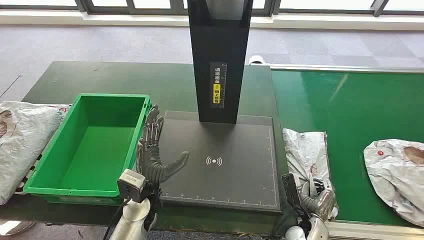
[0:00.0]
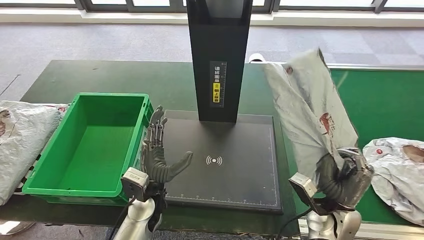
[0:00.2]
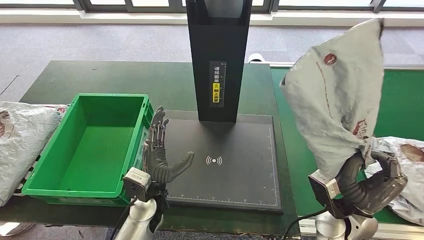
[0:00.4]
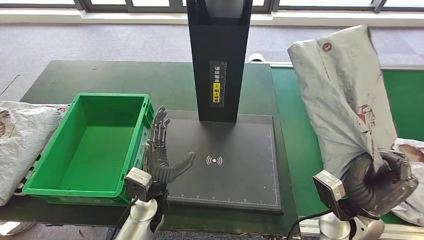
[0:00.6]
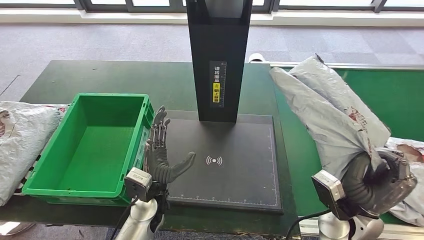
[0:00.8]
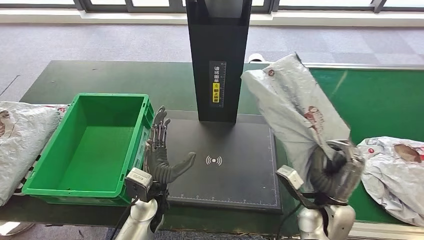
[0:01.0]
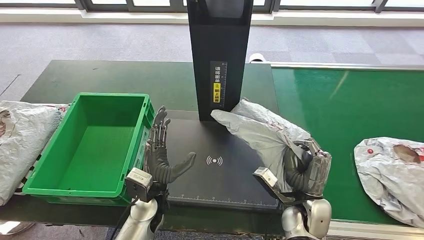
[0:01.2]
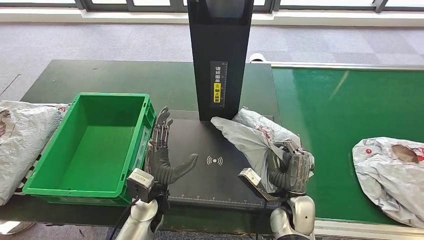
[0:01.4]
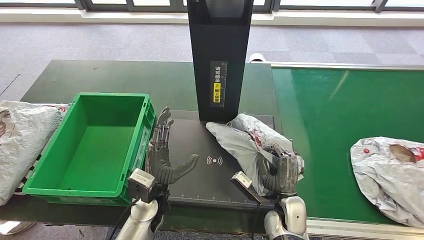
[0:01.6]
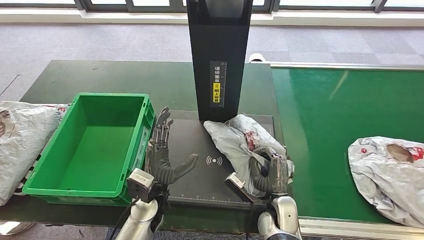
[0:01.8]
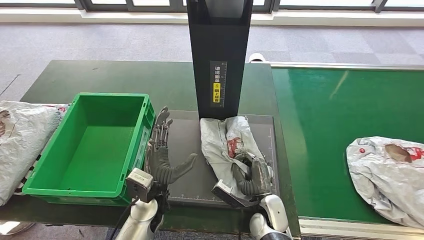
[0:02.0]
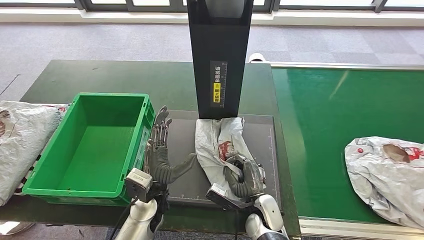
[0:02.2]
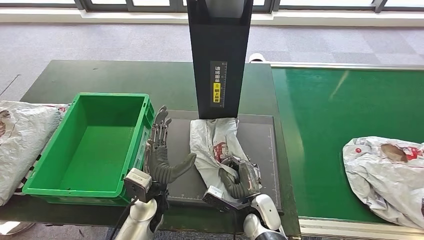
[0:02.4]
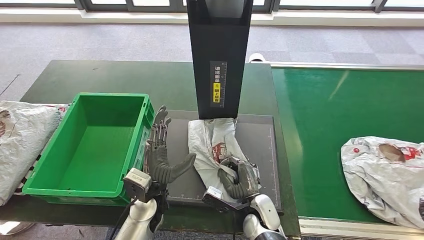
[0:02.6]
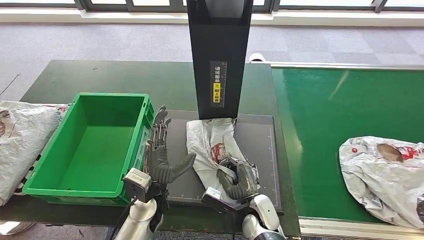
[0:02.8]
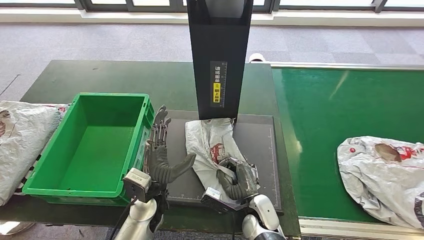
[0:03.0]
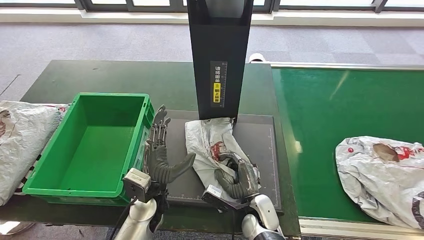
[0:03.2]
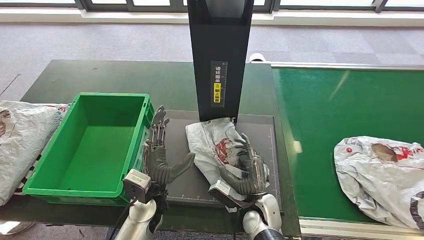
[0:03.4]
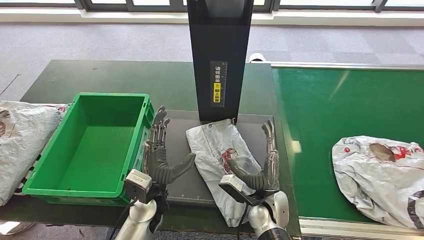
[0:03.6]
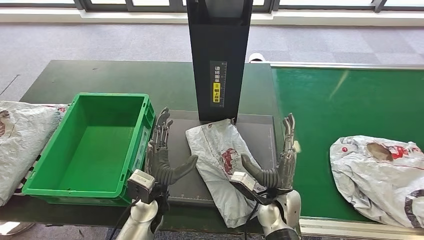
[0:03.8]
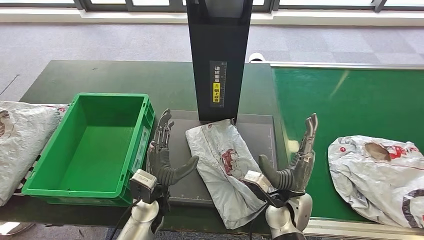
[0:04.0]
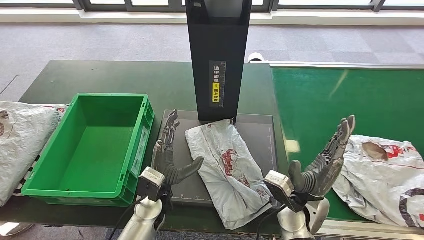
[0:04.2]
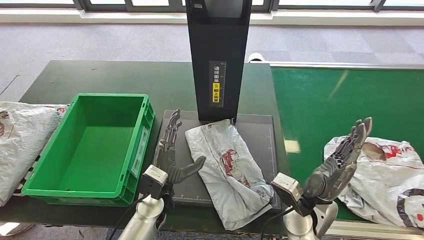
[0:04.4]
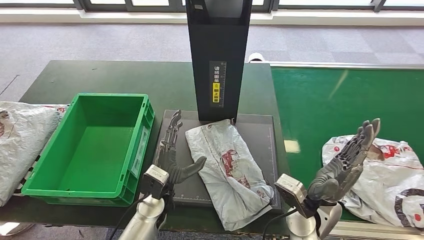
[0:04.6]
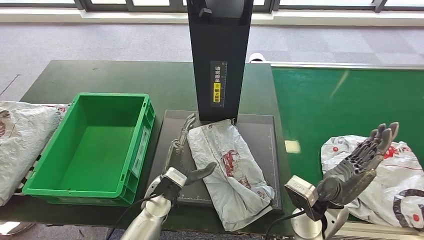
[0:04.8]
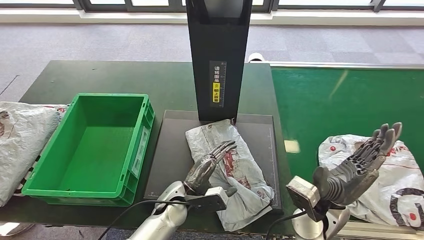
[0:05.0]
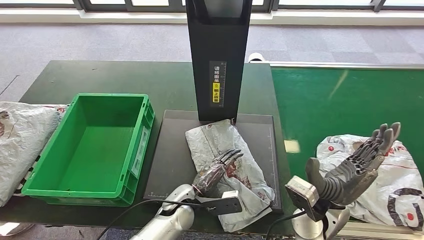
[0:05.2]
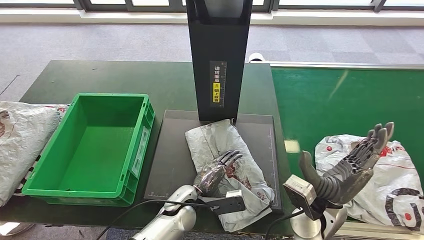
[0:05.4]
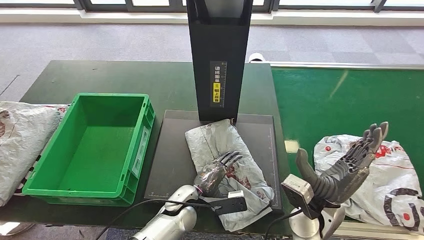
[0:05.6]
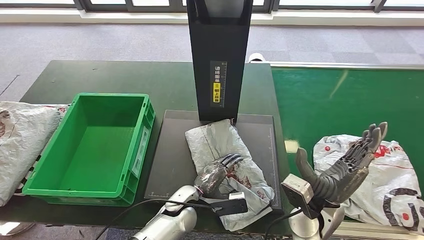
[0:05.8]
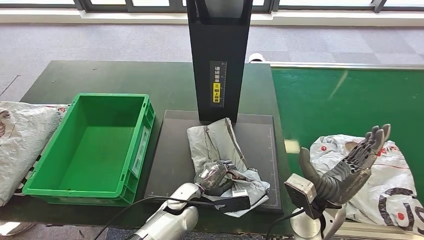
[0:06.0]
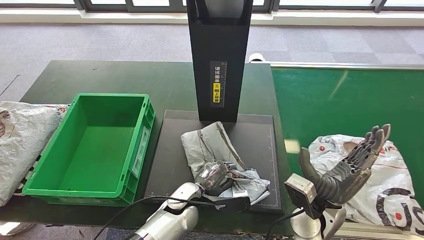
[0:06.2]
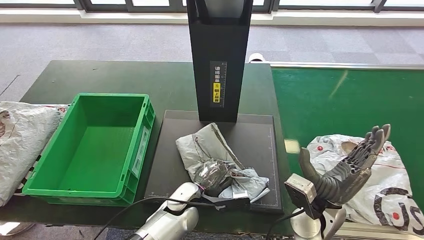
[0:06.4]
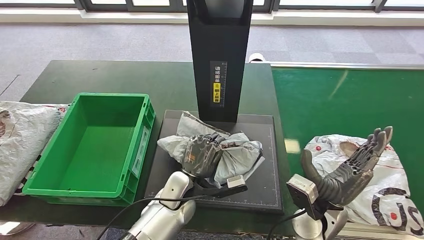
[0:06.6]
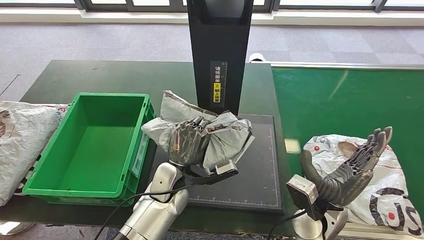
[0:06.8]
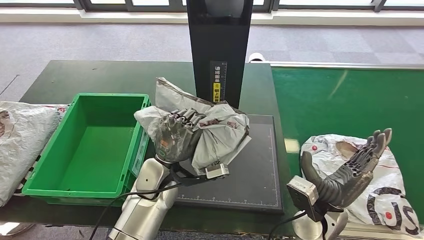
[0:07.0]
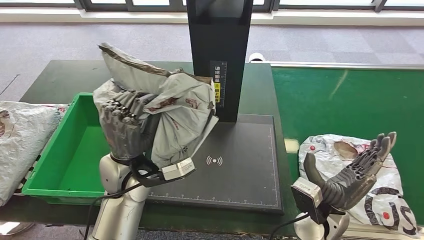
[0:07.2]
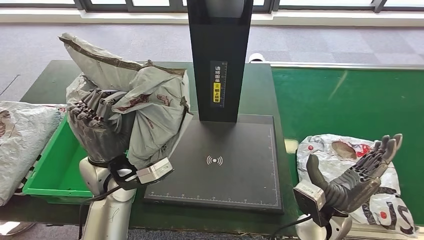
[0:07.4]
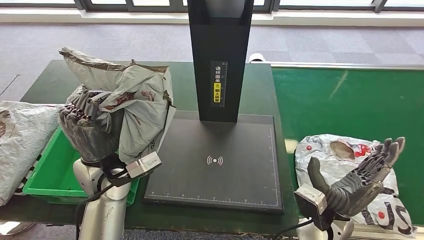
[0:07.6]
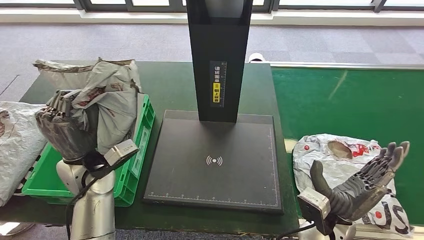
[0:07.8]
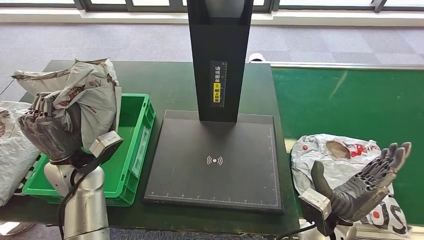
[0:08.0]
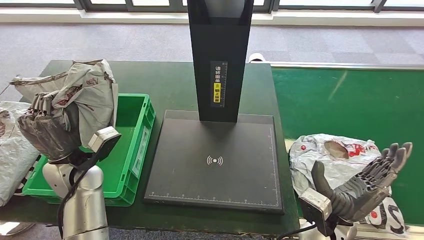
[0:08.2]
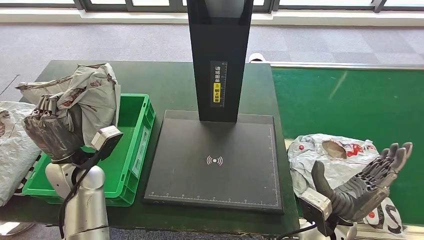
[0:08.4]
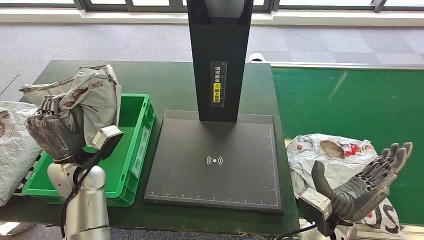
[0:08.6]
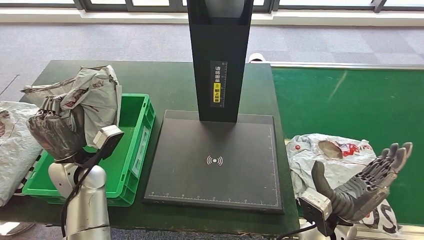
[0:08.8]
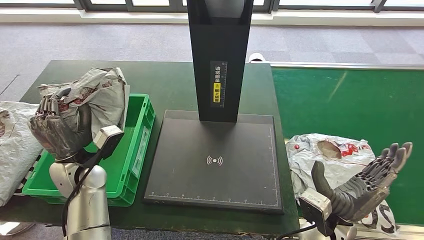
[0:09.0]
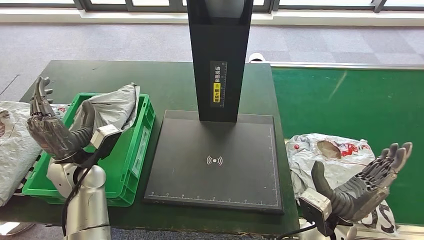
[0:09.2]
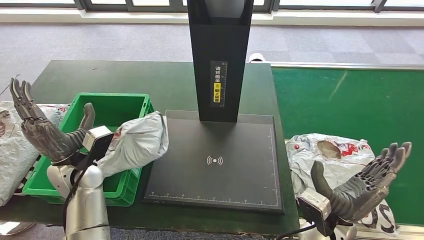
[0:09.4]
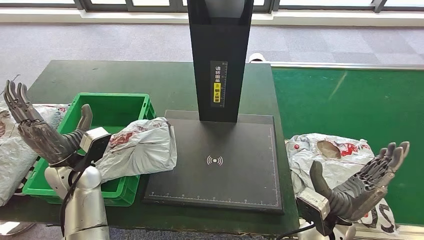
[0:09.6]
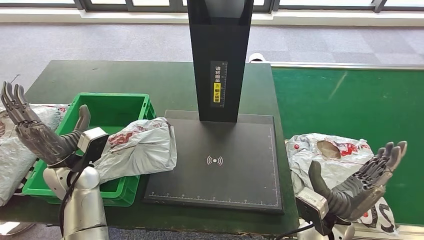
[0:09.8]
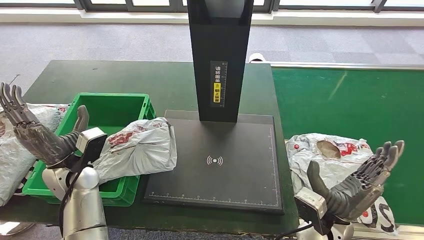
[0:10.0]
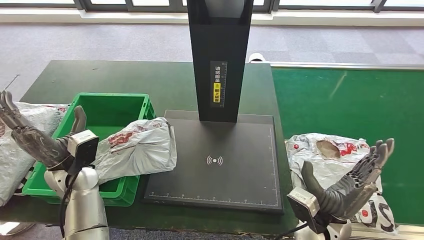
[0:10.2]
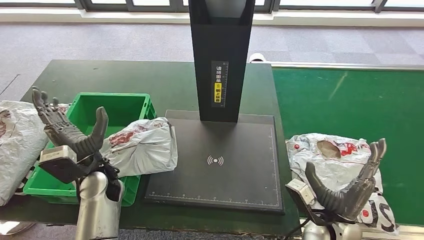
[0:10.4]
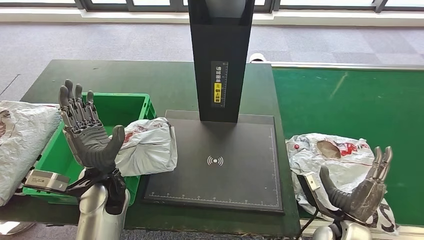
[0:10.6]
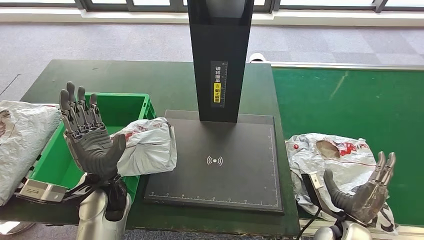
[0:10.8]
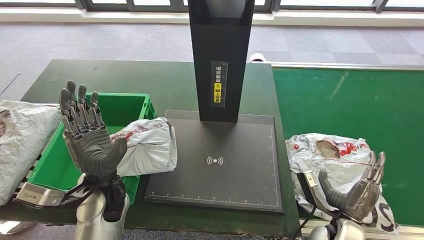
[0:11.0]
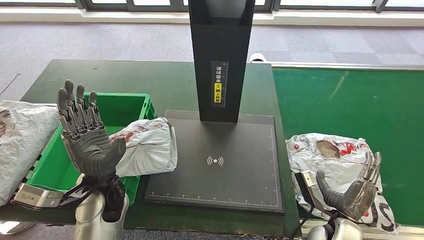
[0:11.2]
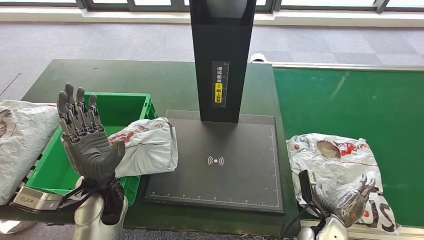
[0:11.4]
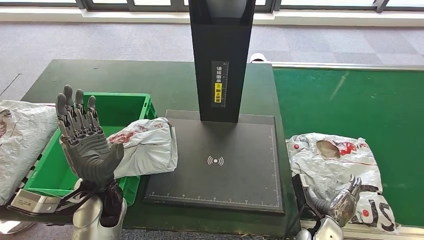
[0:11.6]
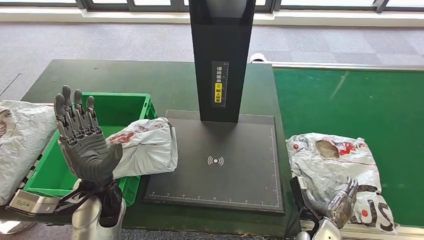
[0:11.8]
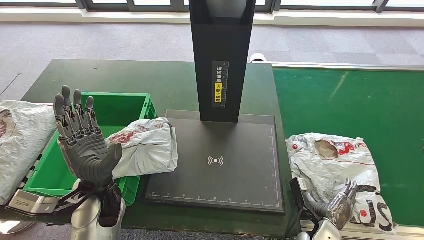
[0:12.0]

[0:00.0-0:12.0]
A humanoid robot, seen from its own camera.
Step, 0.0 to 1.4 s: Take the parcel off the conveyor belt.
Step, 1.6 to 4.2 s: Place the parcel onto the inbound machine.
Step, 4.4 to 7.0 s: Pick up the parcel from the inbound machine.
Step, 7.2 to 10.8 s: Put the parcel inside the courier box.
1.6 to 3.0 s: The right hand travels to the left by about 5 cm.
4.4 to 6.0 s: The left hand travels to the right by about 5 cm.
7.6 to 9.0 s: The left hand moves to the left and downward, approximately 10 cm.
10.4 to 12.0 s: The right hand goes some 10 cm downward. The left hand changes place by some 5 cm.

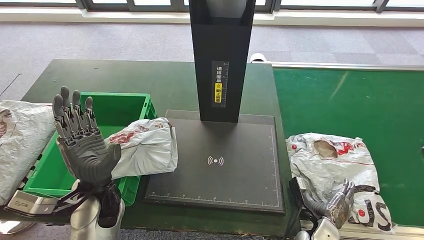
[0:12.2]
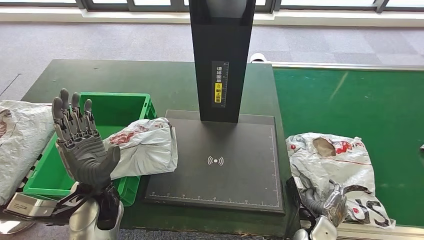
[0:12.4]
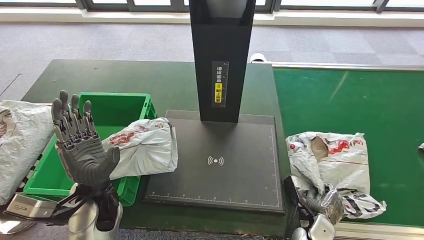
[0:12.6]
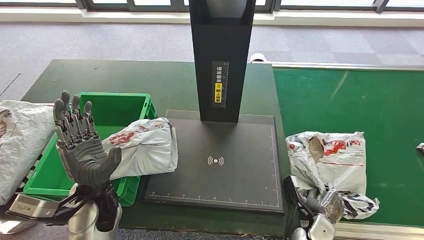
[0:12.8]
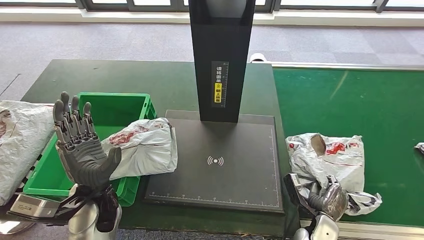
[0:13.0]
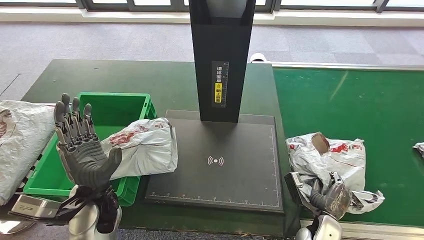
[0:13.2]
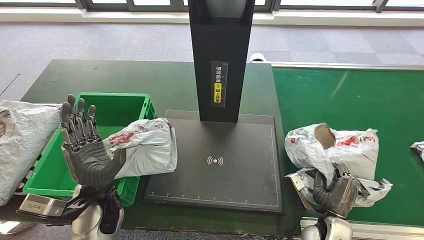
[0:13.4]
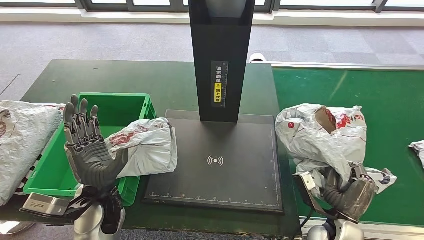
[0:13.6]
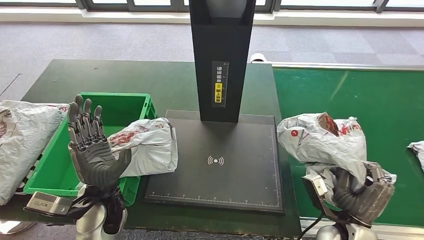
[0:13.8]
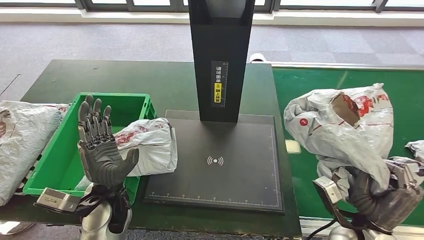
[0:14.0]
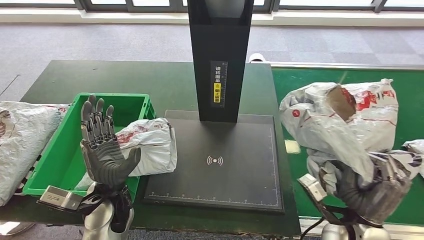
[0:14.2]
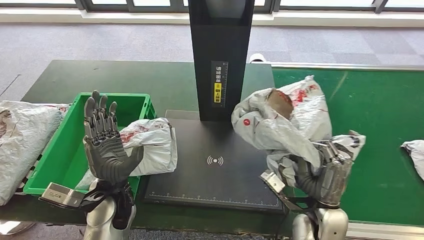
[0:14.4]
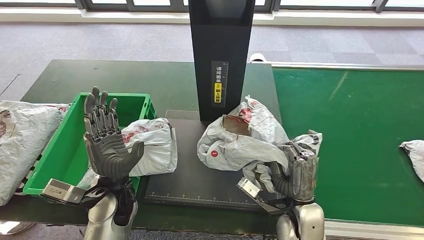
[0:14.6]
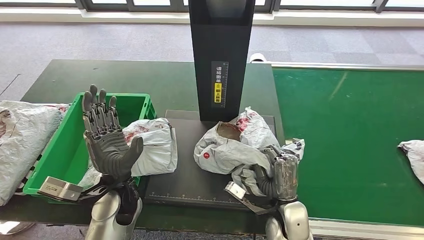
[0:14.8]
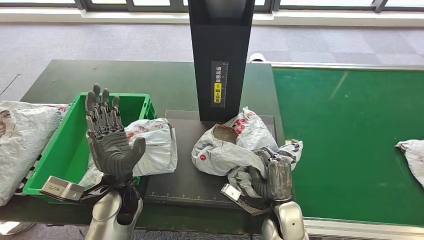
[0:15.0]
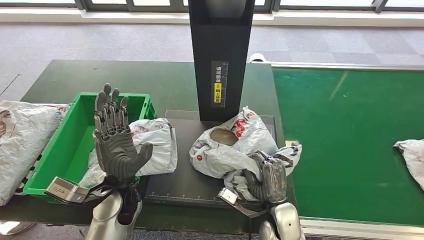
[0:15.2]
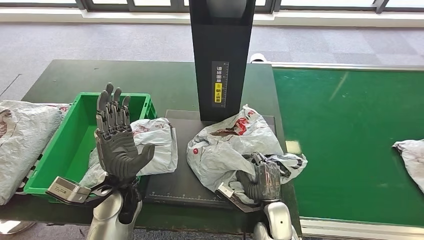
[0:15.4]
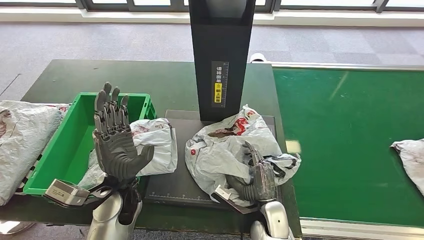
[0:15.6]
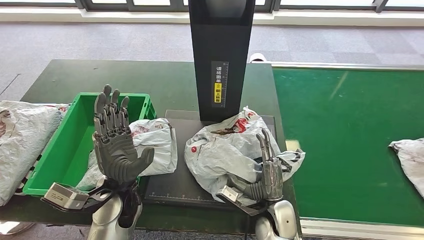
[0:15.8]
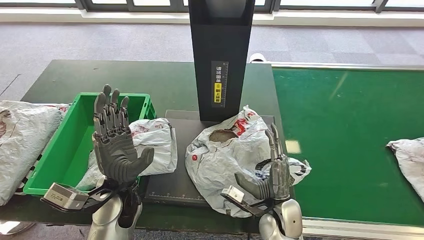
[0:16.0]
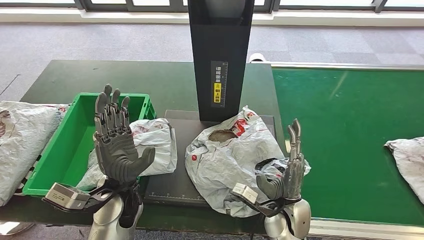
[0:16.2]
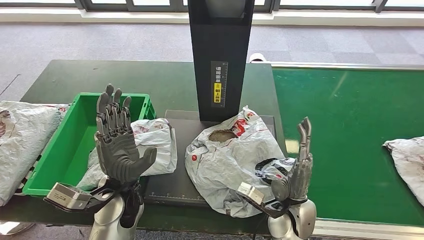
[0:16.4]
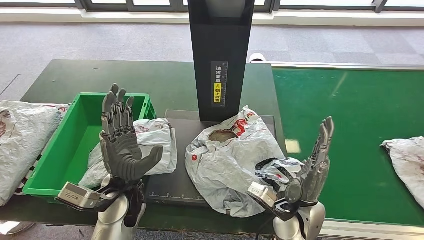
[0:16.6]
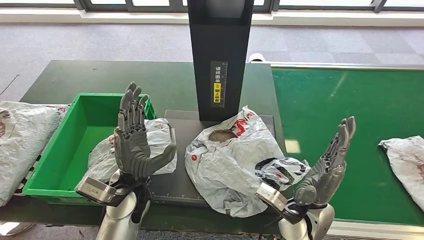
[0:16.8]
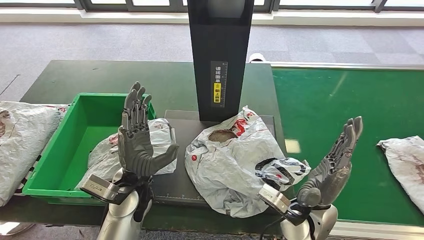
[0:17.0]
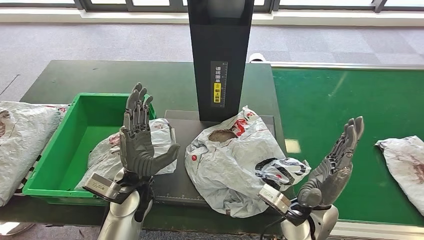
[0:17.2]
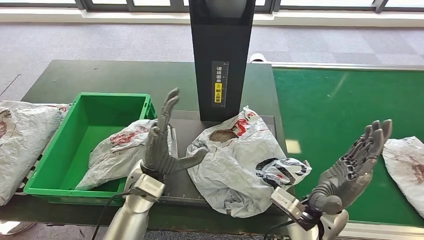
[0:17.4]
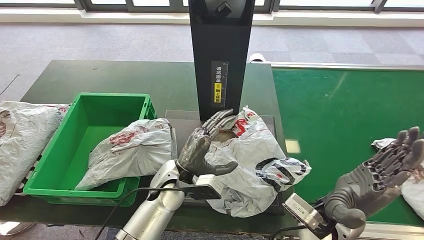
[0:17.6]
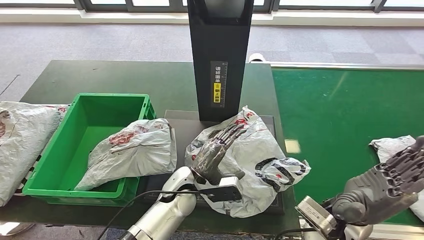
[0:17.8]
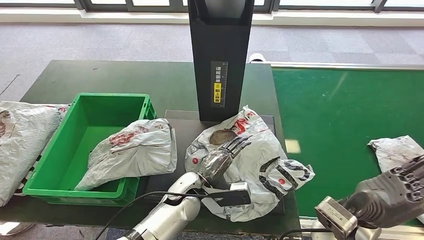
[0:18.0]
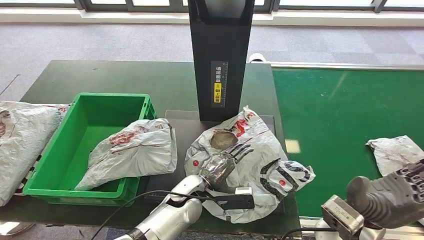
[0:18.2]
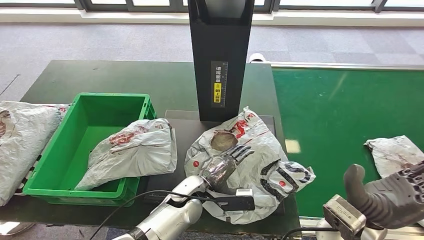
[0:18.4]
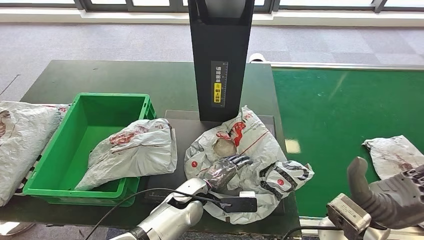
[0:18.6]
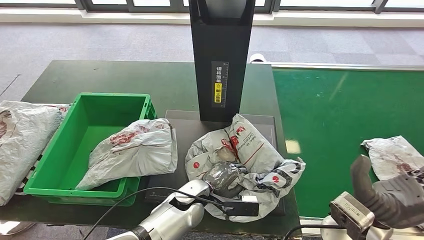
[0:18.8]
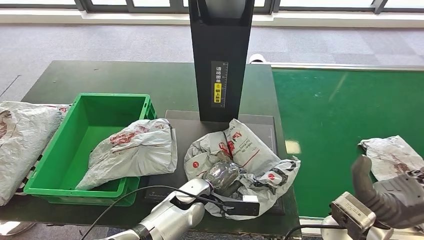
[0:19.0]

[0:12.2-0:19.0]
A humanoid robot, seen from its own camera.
Step, 12.2 to 14.0 s: Pick up the parcel from the conveyor belt.
Step, 14.2 to 16.6 s: Place the parcel onto the inbound machine.
12.2 to 13.6 s: The right hand heads upward, covering some 10 cm.
16.2 to 17.6 s: The right hand shifts roughly 10 cm upward and to the right, while the left hand goes about 10 cm to the right.
